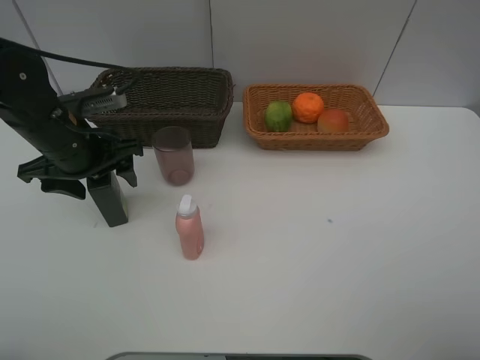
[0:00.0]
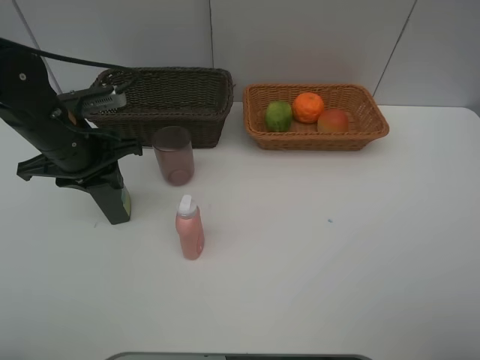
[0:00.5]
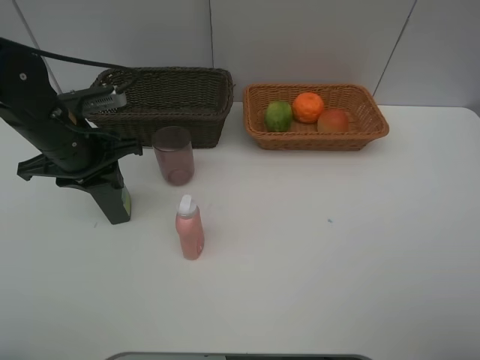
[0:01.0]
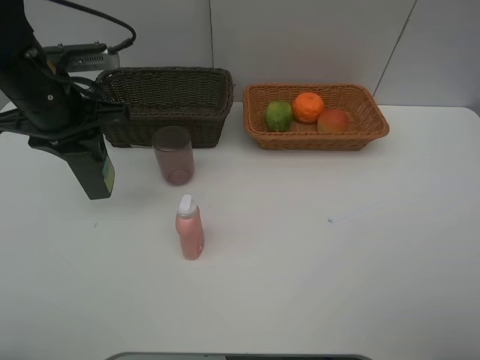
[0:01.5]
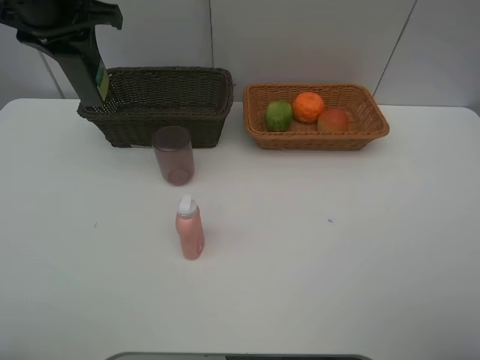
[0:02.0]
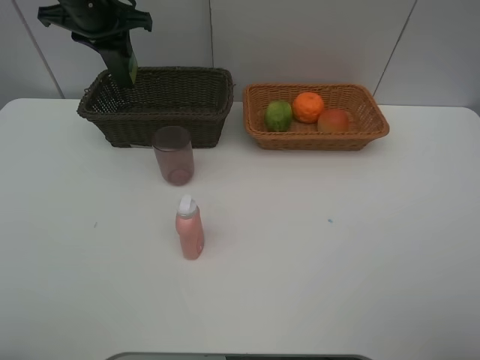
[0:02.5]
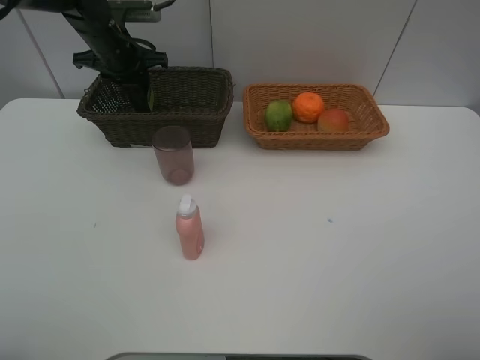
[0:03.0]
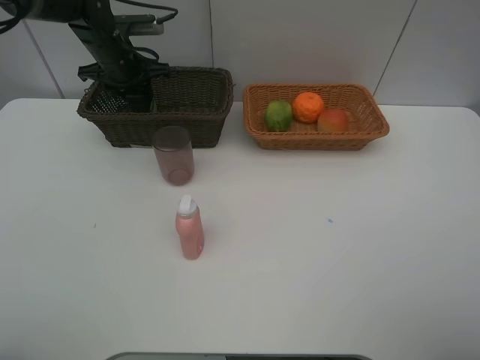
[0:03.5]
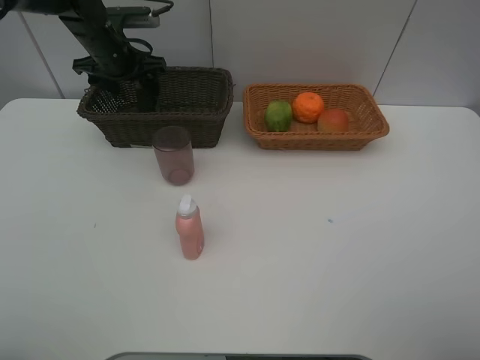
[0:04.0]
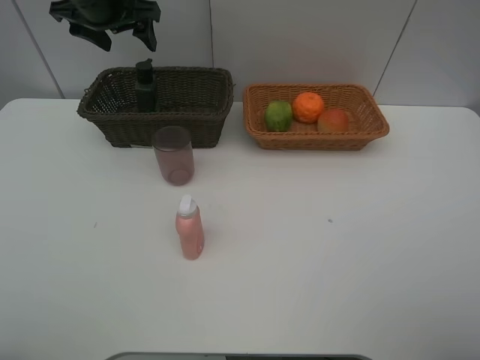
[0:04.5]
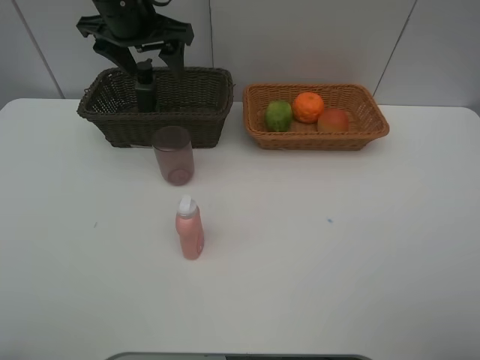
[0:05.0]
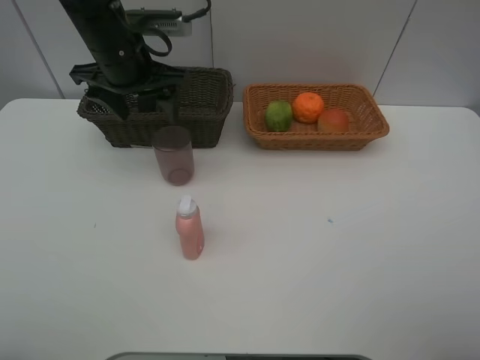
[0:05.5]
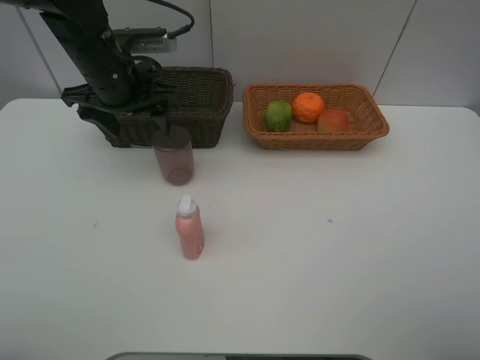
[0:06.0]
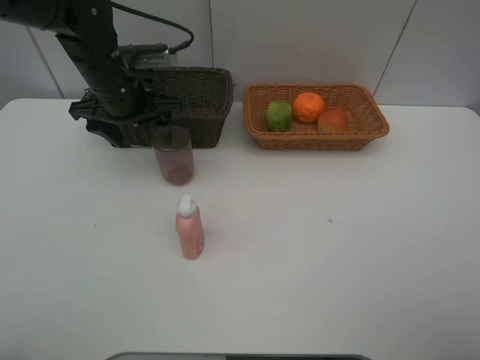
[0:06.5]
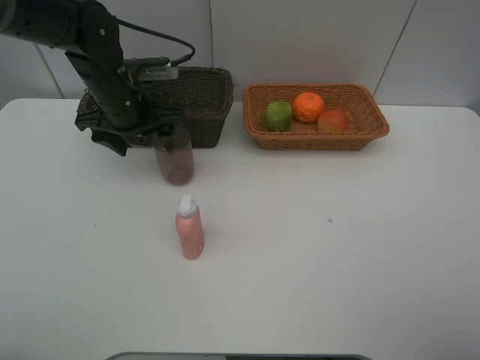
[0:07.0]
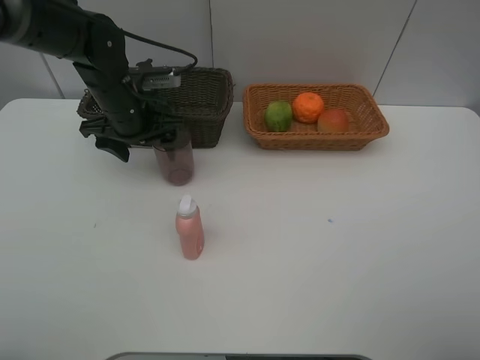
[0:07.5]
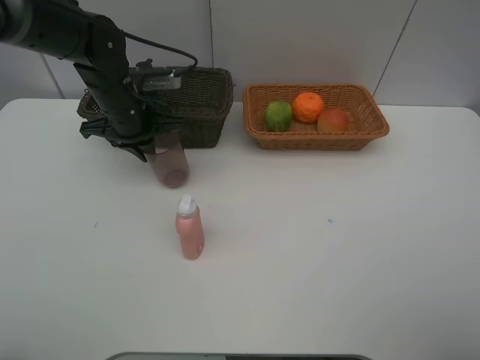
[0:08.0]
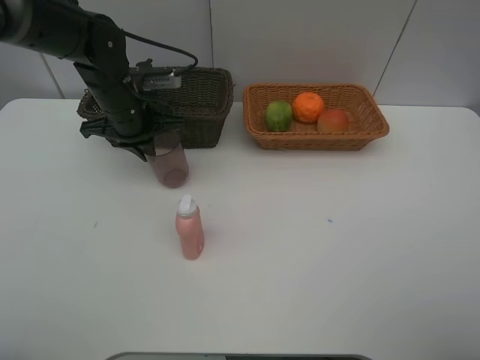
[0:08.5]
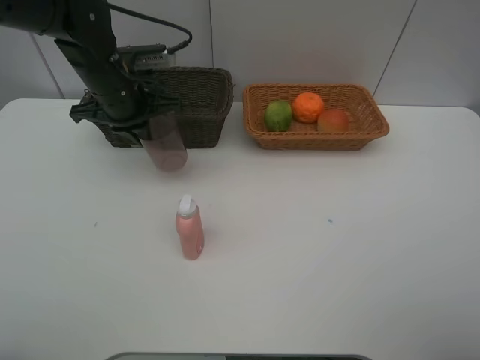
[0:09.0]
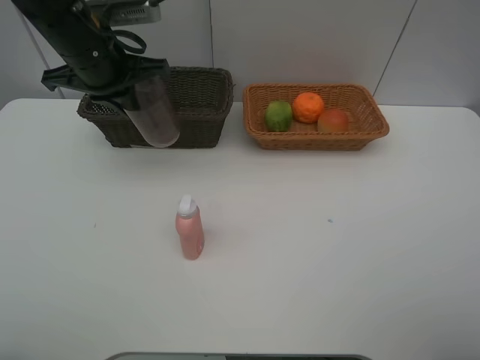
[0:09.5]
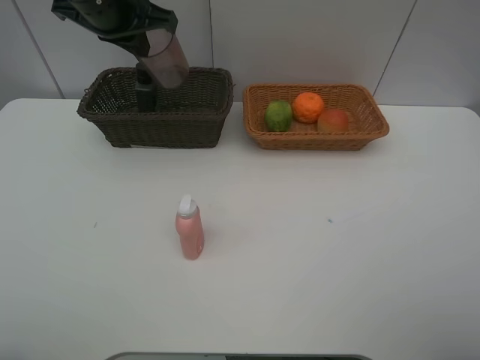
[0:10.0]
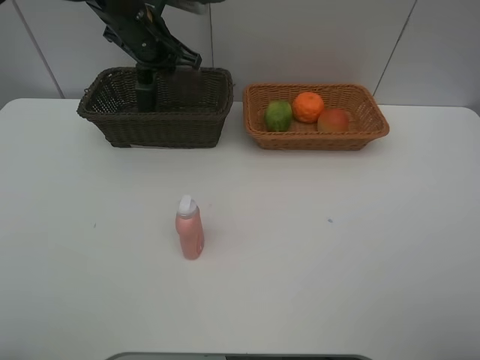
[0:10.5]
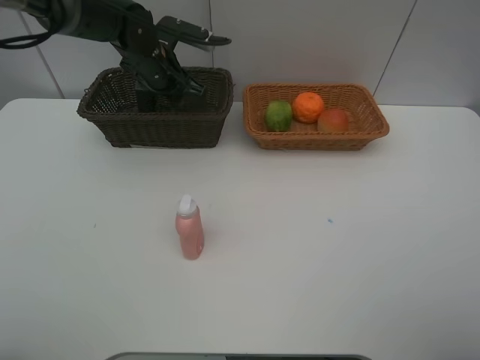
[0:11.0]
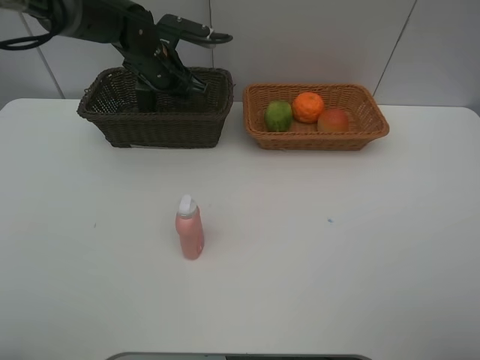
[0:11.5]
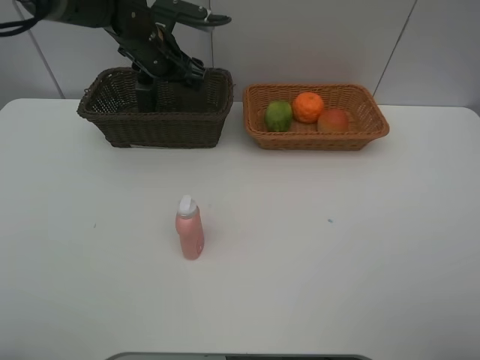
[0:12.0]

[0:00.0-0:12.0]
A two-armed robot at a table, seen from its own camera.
Task of the whole recording: place multiple objects separately in different baskets.
0:00.0 to 0:02.0: The left gripper shifts roughly 20 cm upward and forward, and closes its fingers.
0:02.0 to 0:04.0: The left gripper shifts roughly 15 cm downward and forward, and opens up.
0:04.0 to 0:06.0: The left gripper shifts about 15 cm backward and to the right.
0:06.0 to 0:08.0: The left gripper heads downward, covering about 5 cm, and closes its fingers.
0:08.0 to 0:10.0: The left gripper goes approximately 15 cm upward.
0:10.0 to 0:12.0: The left gripper heads downward and forward, covering some 10 cm, and opens.

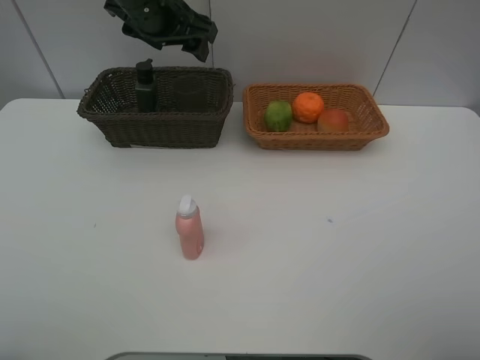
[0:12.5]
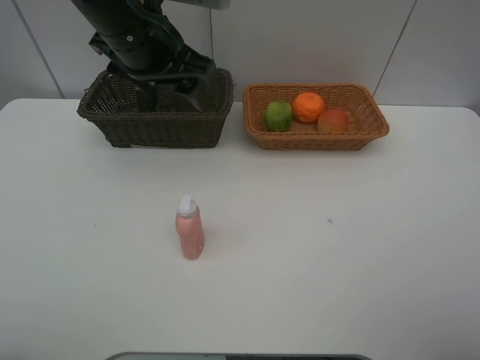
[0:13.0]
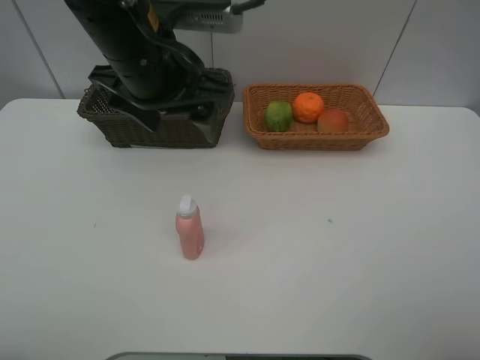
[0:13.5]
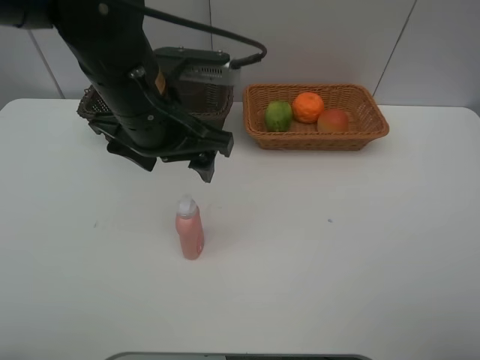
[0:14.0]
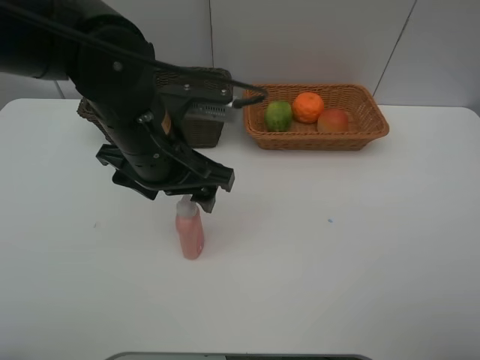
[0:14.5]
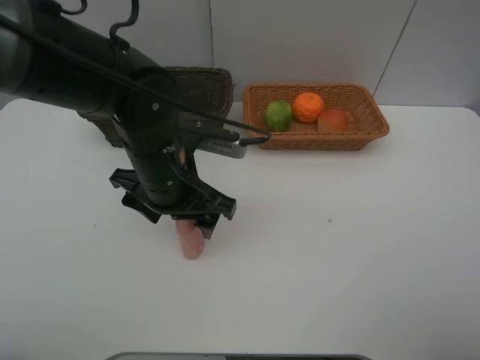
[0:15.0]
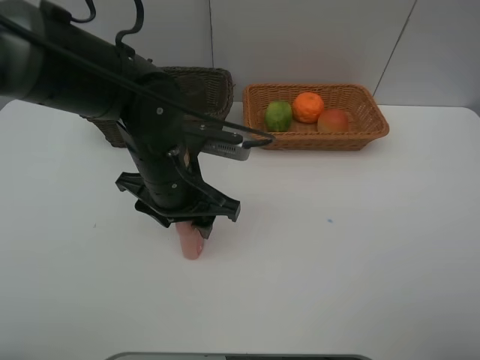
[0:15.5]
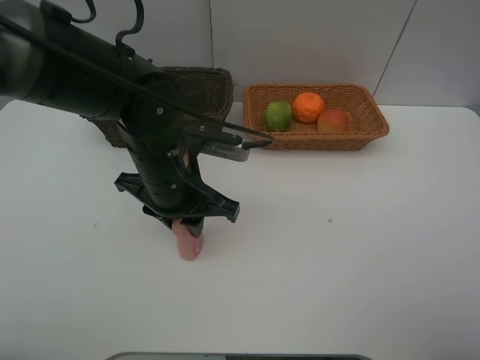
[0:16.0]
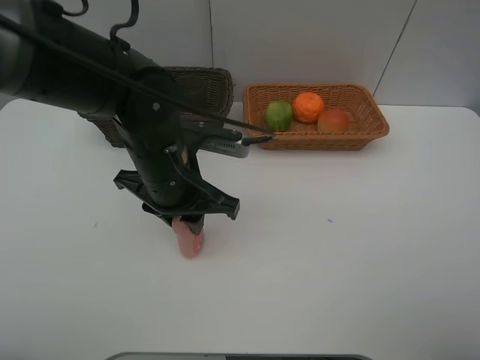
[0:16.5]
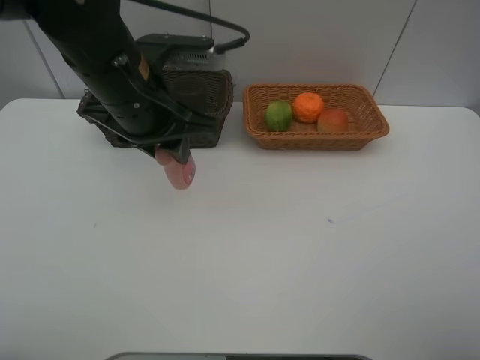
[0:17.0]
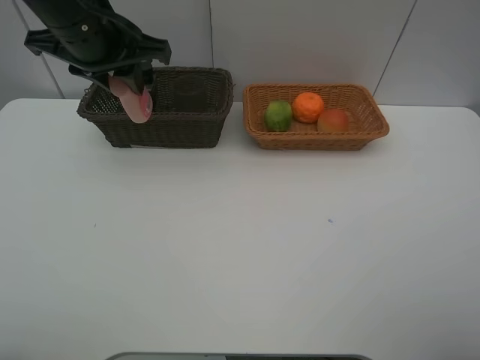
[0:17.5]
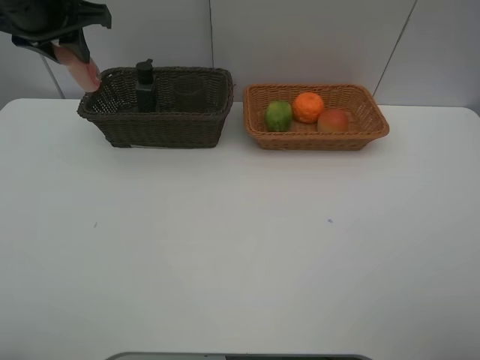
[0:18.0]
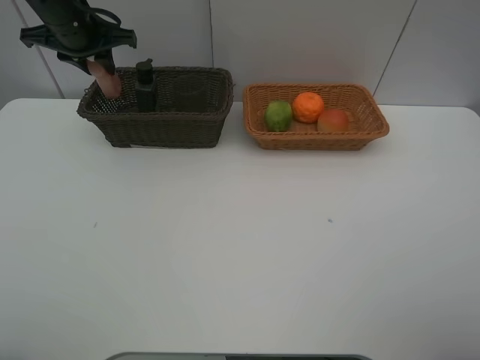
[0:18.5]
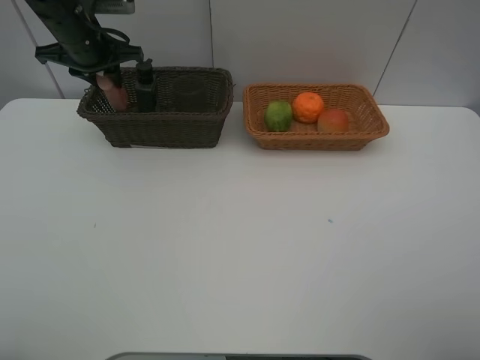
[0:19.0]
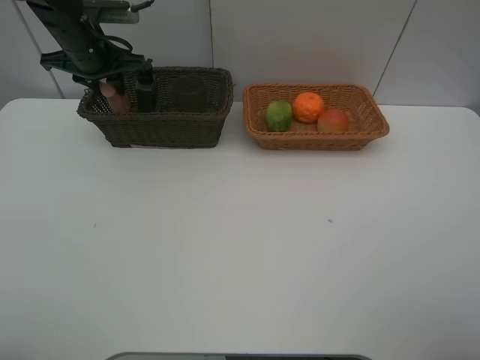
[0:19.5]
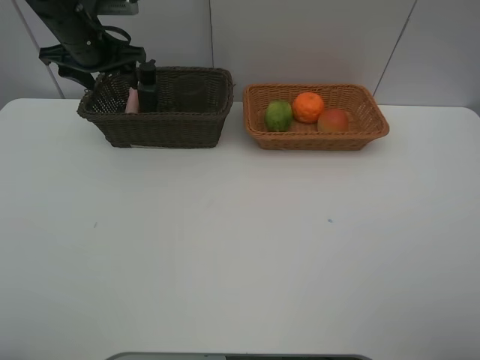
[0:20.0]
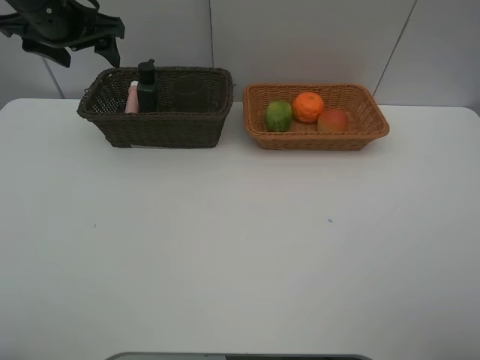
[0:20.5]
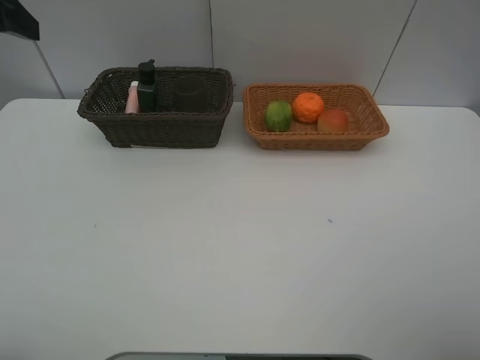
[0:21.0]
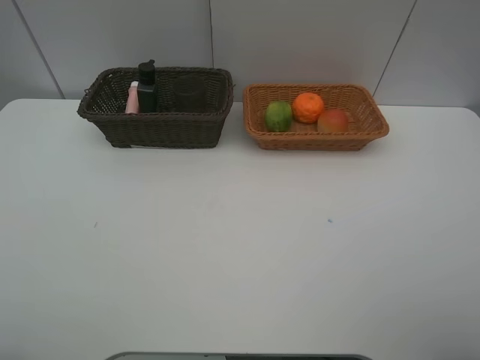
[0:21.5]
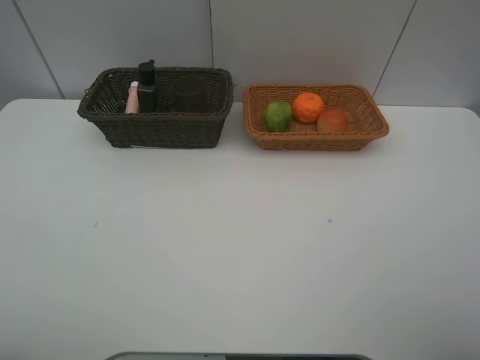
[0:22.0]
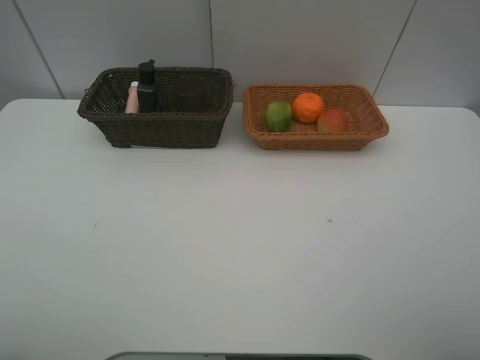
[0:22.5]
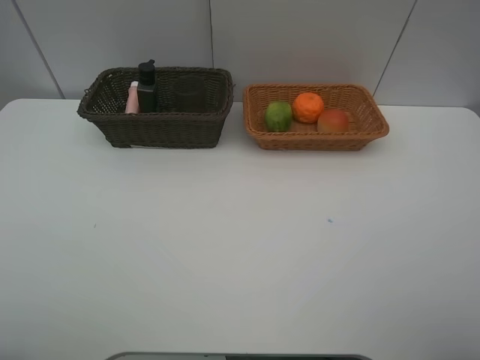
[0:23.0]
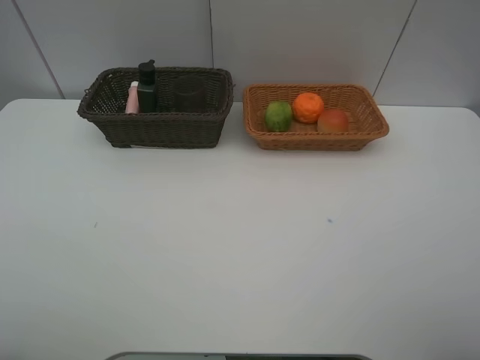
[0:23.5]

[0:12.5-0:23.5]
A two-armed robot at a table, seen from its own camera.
Task of the whole recording: place multiple objects separately in different baskets.
0:12.5 to 0:14.5: The left gripper moves backward and downward, some 20 cm.
0:14.5 to 0:16.0: The left gripper closes its fingers.
0:16.0 to 0:18.0: The left gripper is displaced to the left, upward and forward by some 25 cm.
0:18.0 to 0:20.0: The left gripper heads downward and forward, covering about 10 cm, and opens.
0:20.0 to 0:21.5: The left gripper moves backward, approximately 40 cm.
